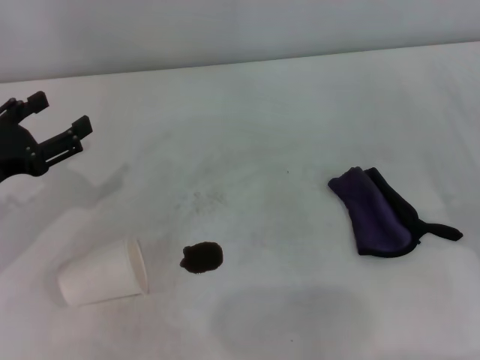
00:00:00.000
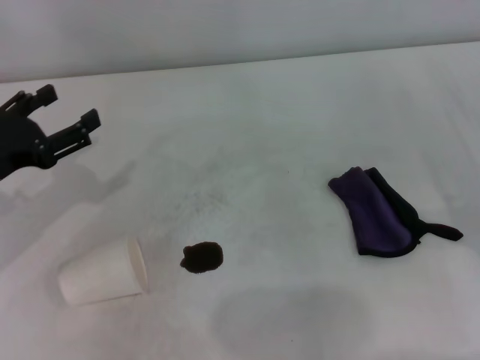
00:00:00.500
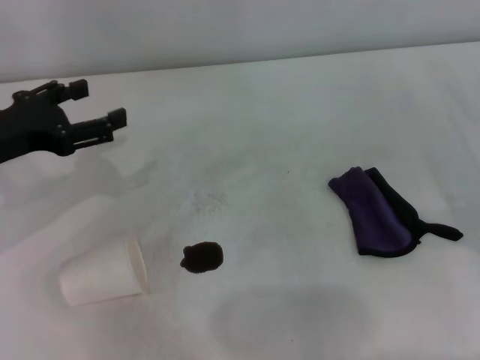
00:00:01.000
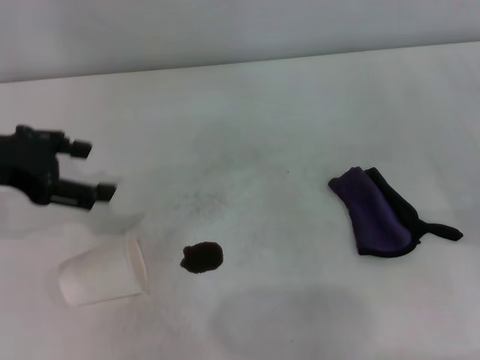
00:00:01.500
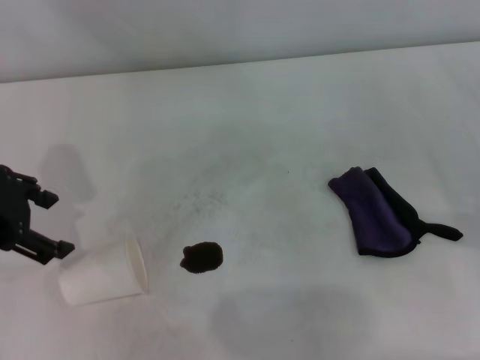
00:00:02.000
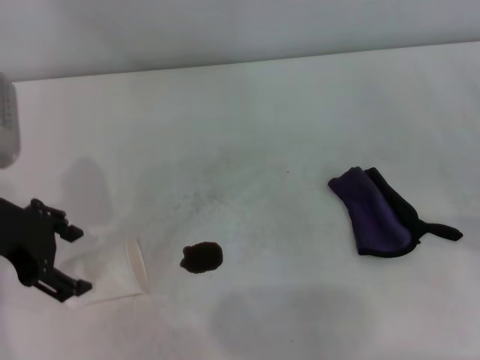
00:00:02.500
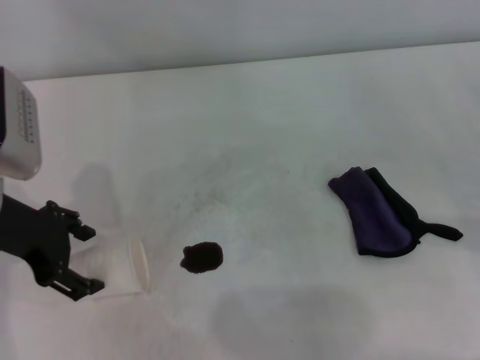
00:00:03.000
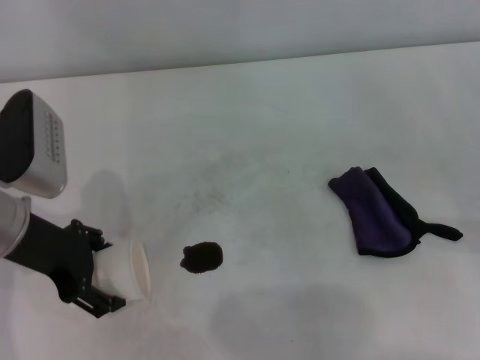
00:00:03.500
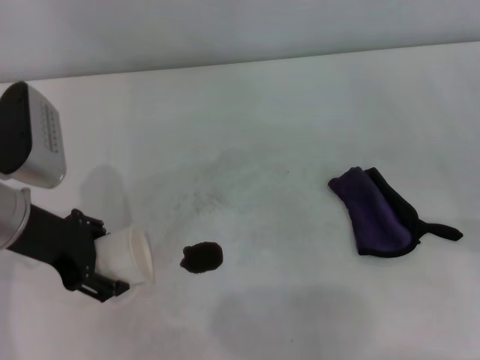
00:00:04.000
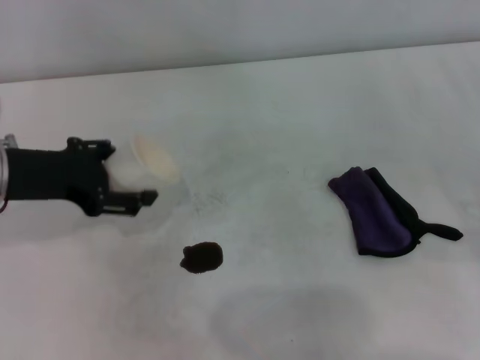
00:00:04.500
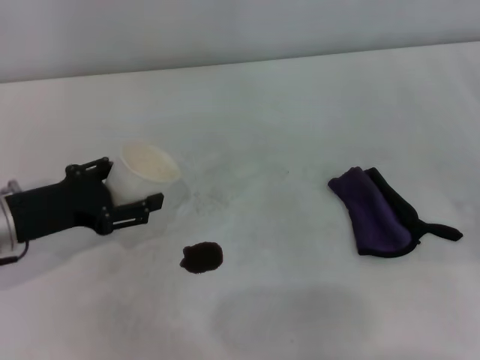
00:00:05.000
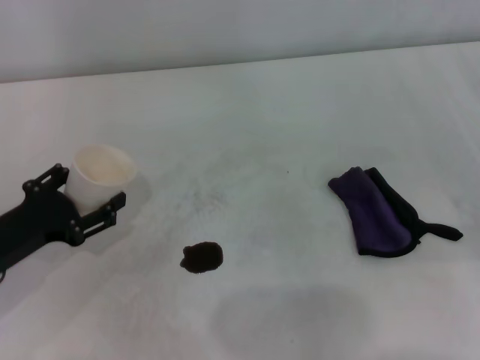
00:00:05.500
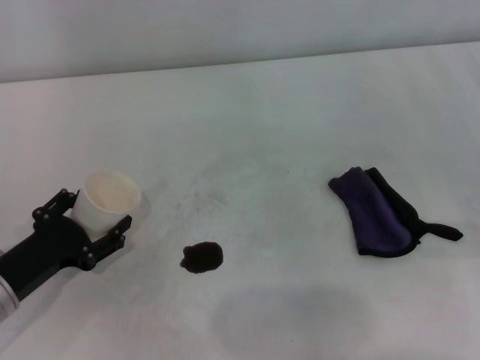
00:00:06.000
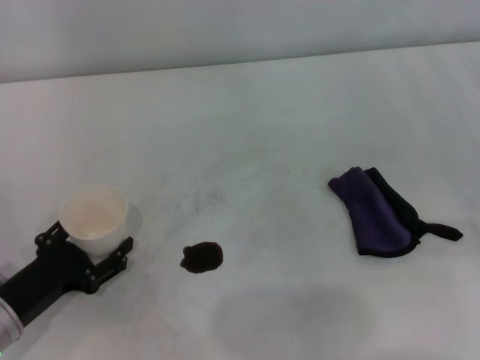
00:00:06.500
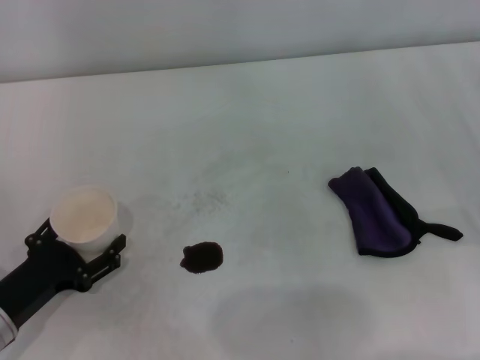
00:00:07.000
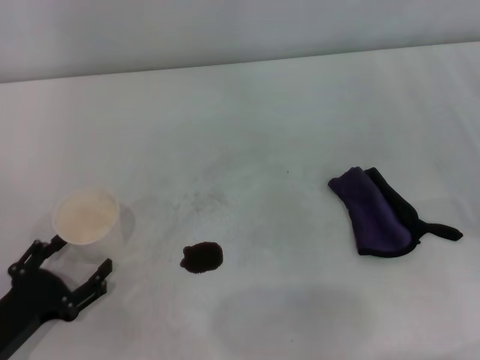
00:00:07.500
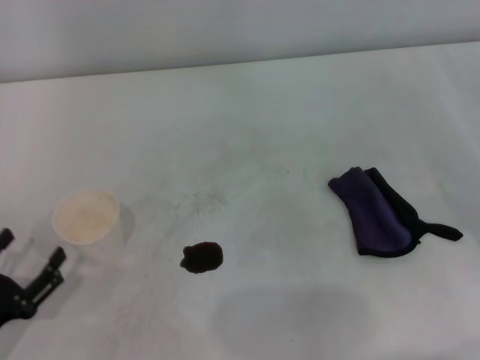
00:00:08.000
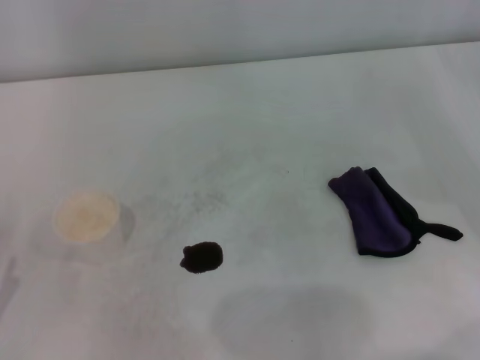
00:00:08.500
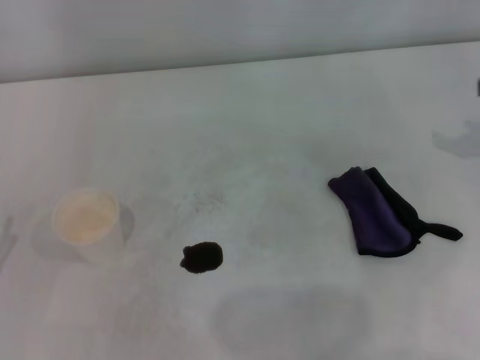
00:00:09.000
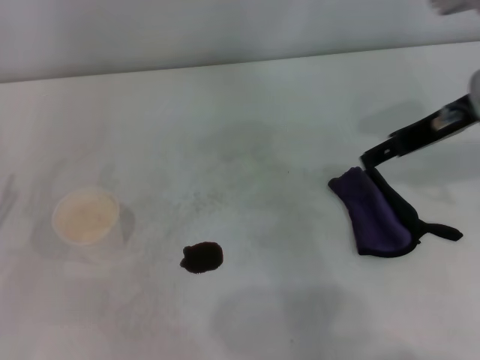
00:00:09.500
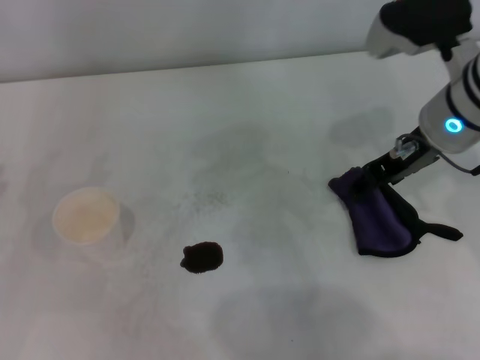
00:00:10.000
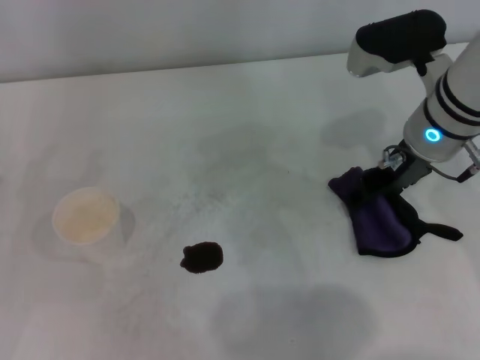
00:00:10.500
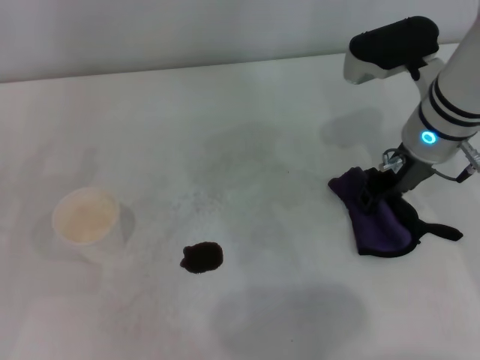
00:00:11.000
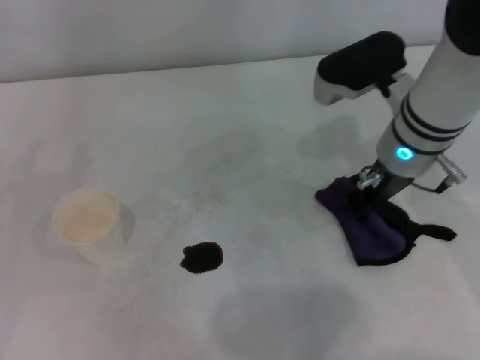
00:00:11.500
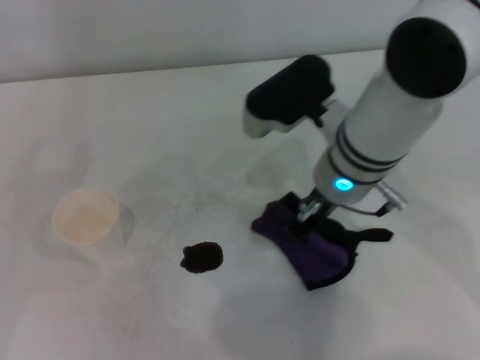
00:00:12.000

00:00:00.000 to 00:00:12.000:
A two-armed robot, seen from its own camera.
Step, 00:00:00.000 to 00:00:03.500: Grasp the paper cup with the left gripper.
Step, 00:00:04.000 to 00:00:07.000: Stand the paper cup upright with the left gripper.
Step, 00:00:07.500 to 00:00:11.000: Grasp the rag with the right gripper.
00:00:00.000 to 00:00:02.000: The left gripper heads upward, covering about 10 cm.
00:00:02.000 to 00:00:04.000: The left gripper goes roughly 5 cm downward.
00:00:04.000 to 00:00:06.000: The left gripper heads downward and backward, covering about 15 cm.
00:00:06.000 to 00:00:08.000: The left gripper moves backward, roughly 10 cm.
00:00:08.000 to 00:00:10.000: The right gripper goes roughly 20 cm to the left and upward; the left gripper heads forward, upward and to the left, covering roughly 10 cm.
00:00:10.000 to 00:00:12.000: The right gripper moves to the left, approximately 10 cm, and closes up.

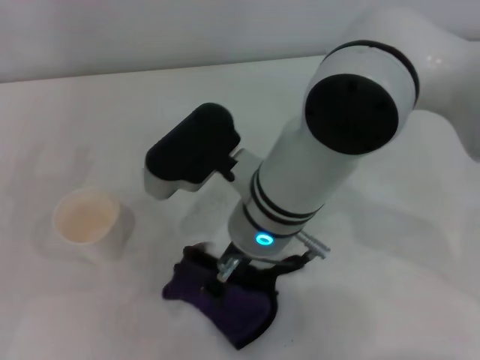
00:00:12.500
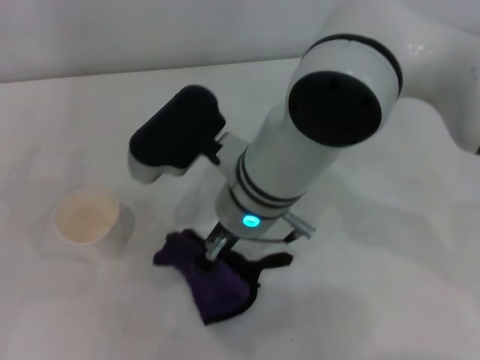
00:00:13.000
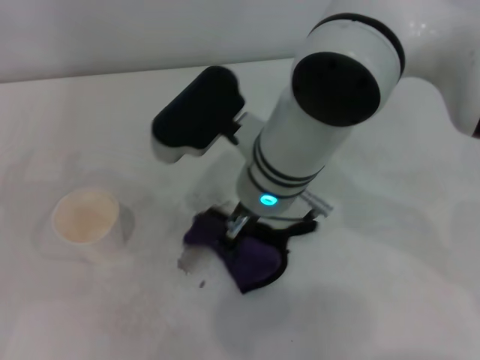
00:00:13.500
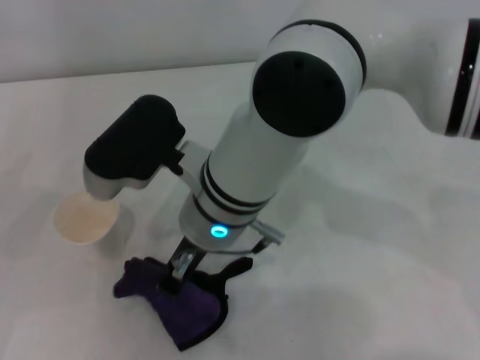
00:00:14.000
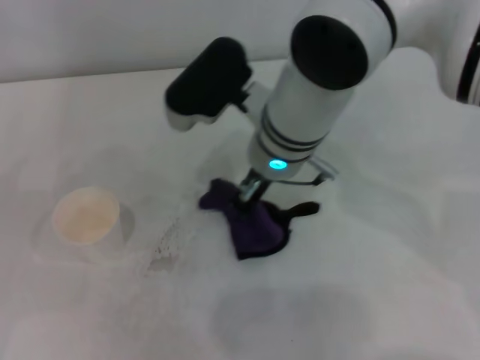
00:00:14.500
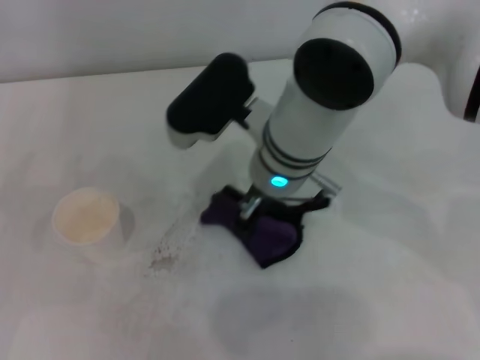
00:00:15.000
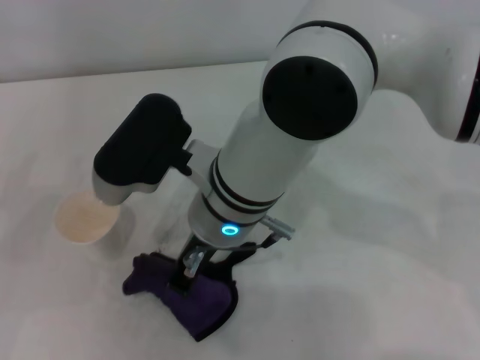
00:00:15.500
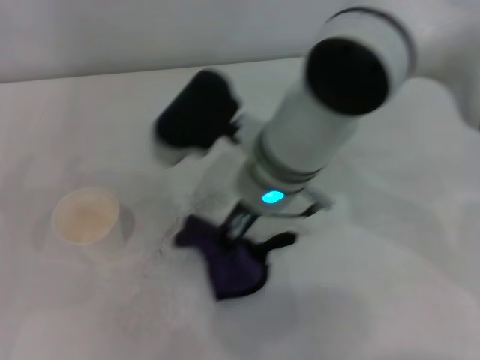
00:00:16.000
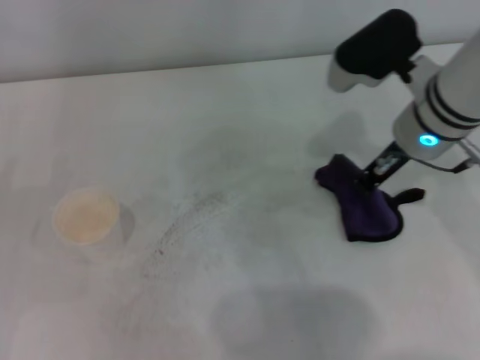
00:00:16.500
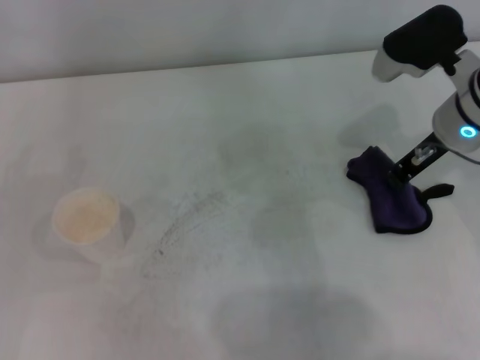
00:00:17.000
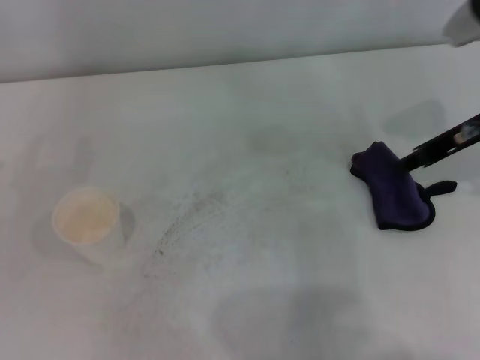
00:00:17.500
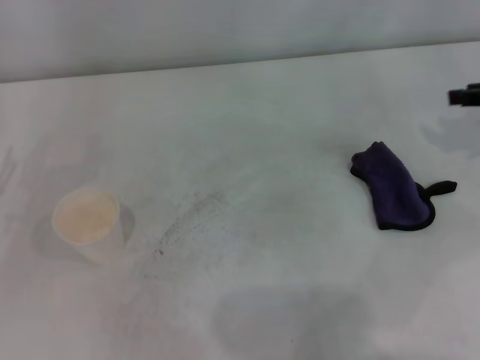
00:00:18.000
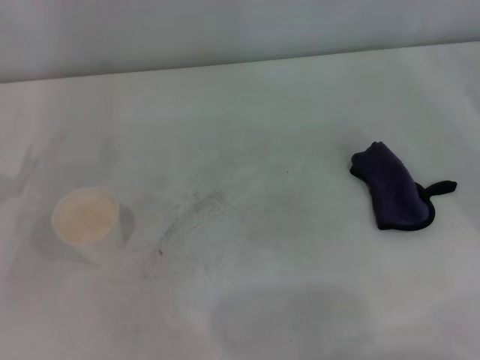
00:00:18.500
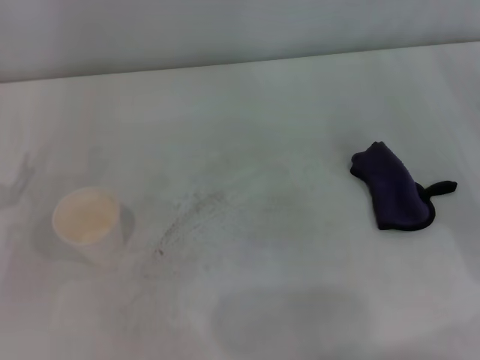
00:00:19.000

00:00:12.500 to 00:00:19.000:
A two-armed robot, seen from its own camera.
Step, 00:00:12.500 to 00:00:16.000: Wipe the stains off the table with the right gripper.
00:00:12.500 to 00:00:14.500: The right gripper heads forward, covering about 5 cm.
00:00:14.500 to 00:00:17.000: The right gripper moves to the right, approximately 20 cm.
00:00:17.000 to 00:00:19.000: The right gripper is displaced to the right, backward and downward by some 20 cm, and opens up.
